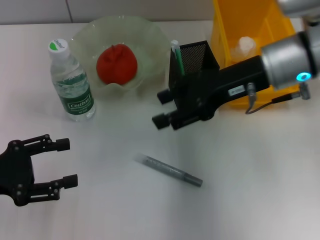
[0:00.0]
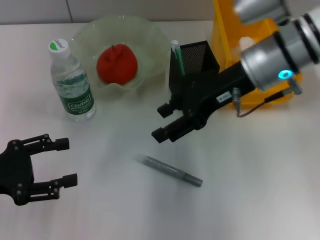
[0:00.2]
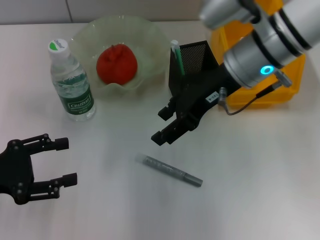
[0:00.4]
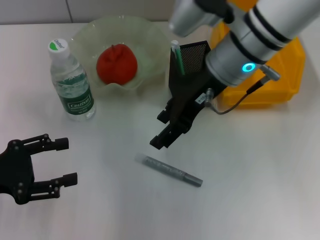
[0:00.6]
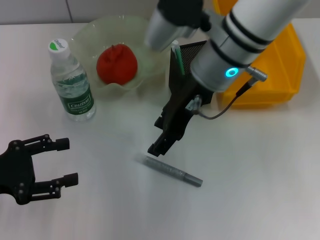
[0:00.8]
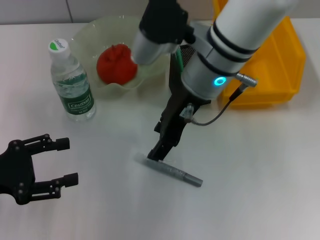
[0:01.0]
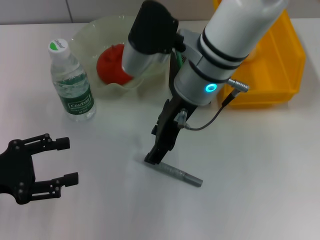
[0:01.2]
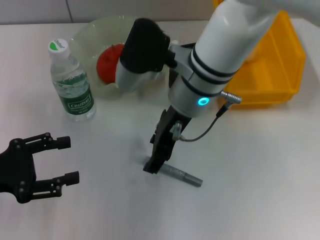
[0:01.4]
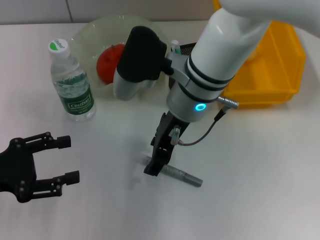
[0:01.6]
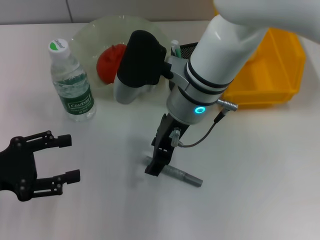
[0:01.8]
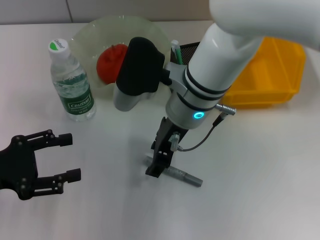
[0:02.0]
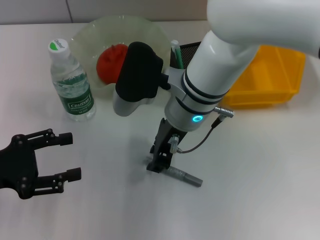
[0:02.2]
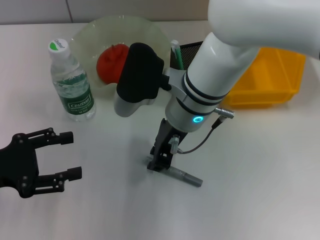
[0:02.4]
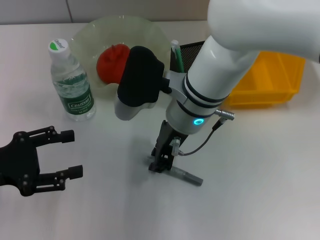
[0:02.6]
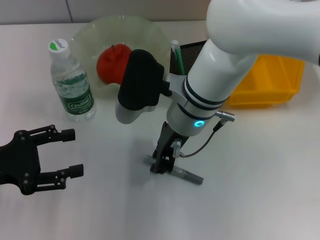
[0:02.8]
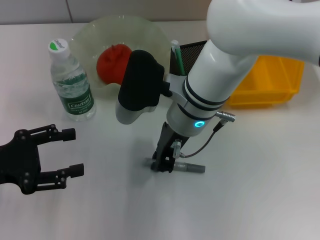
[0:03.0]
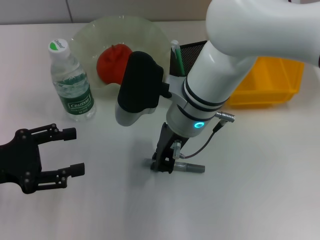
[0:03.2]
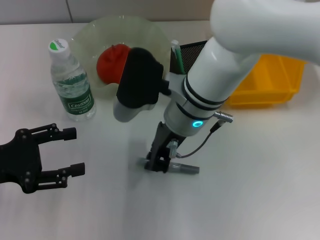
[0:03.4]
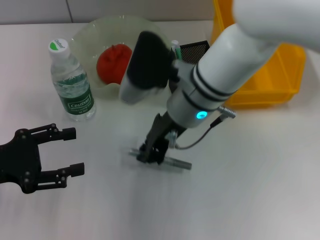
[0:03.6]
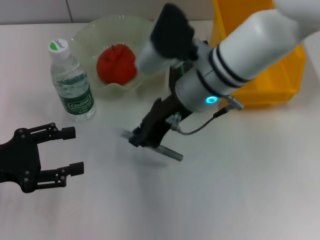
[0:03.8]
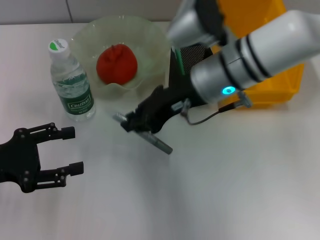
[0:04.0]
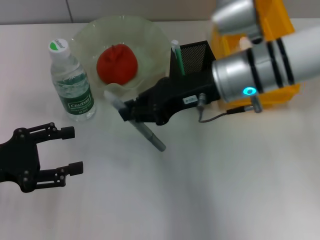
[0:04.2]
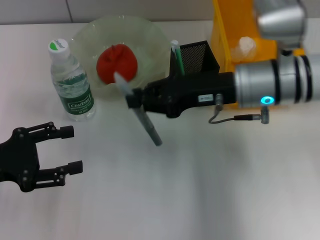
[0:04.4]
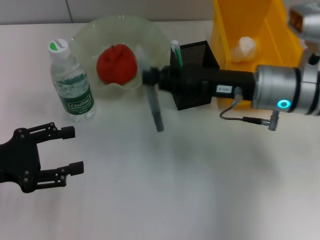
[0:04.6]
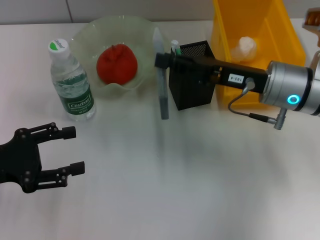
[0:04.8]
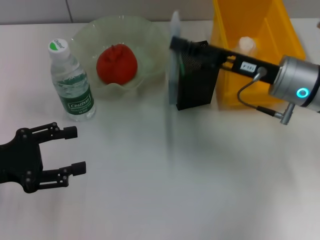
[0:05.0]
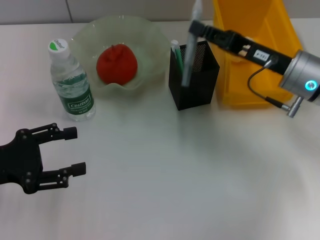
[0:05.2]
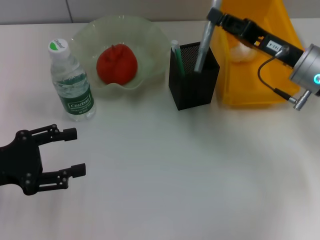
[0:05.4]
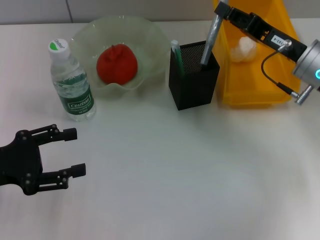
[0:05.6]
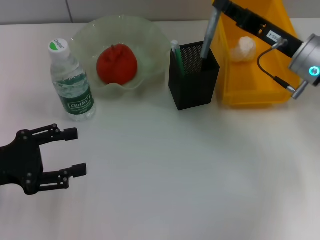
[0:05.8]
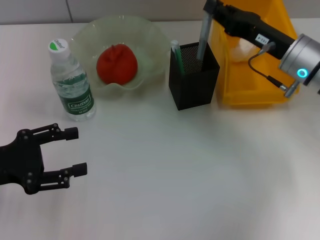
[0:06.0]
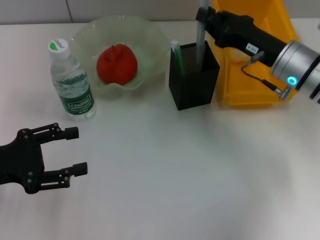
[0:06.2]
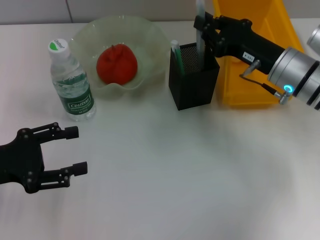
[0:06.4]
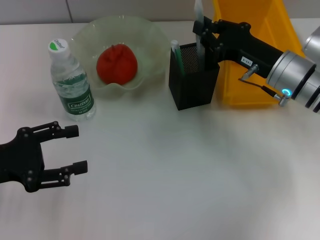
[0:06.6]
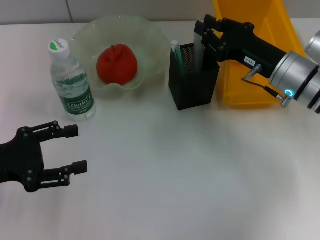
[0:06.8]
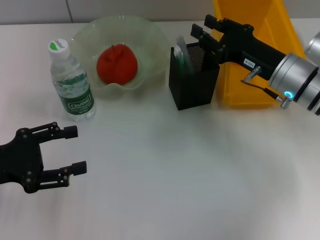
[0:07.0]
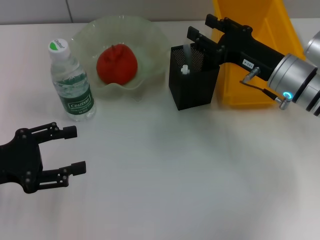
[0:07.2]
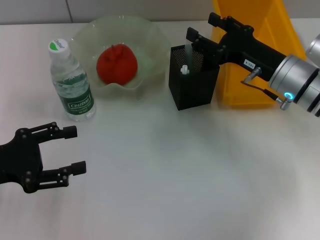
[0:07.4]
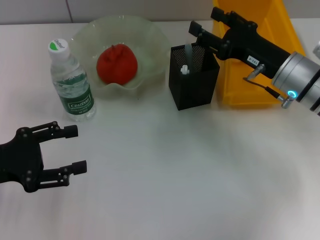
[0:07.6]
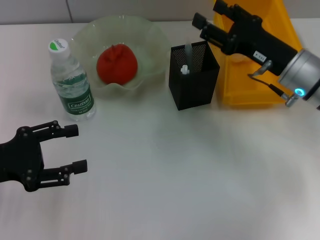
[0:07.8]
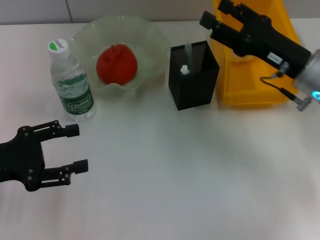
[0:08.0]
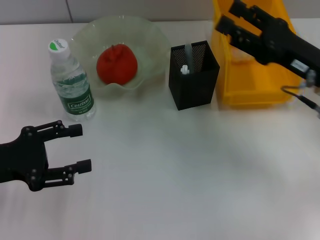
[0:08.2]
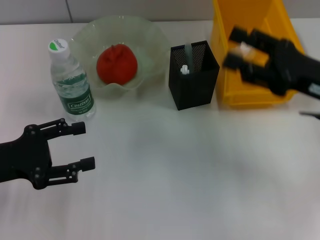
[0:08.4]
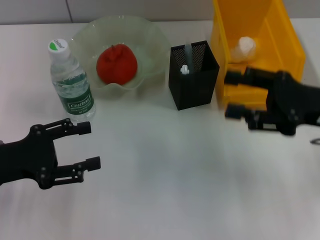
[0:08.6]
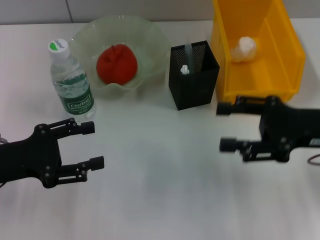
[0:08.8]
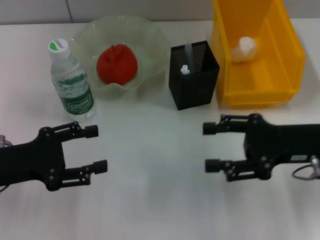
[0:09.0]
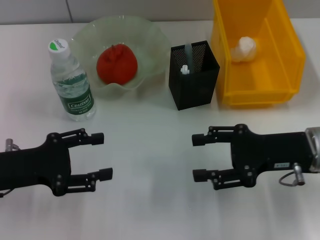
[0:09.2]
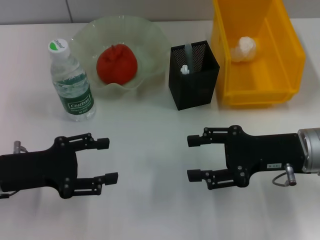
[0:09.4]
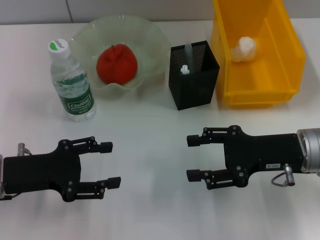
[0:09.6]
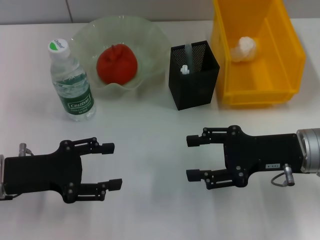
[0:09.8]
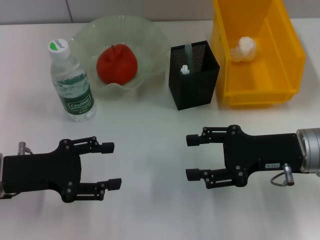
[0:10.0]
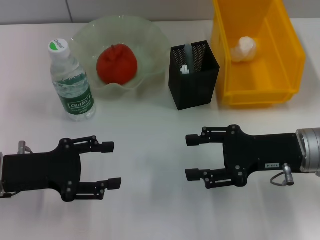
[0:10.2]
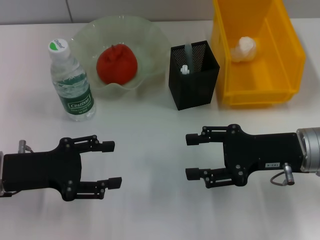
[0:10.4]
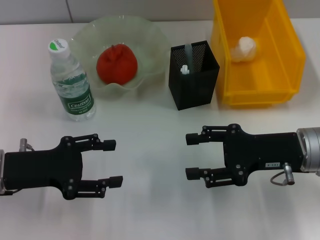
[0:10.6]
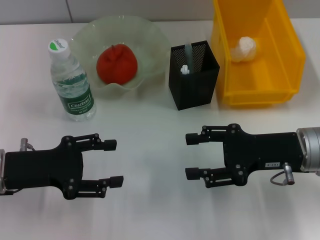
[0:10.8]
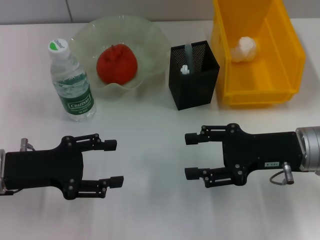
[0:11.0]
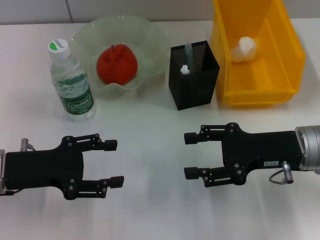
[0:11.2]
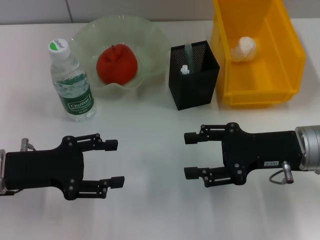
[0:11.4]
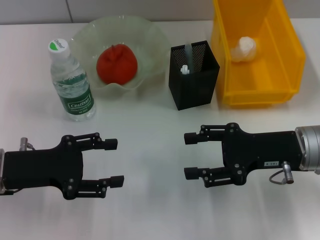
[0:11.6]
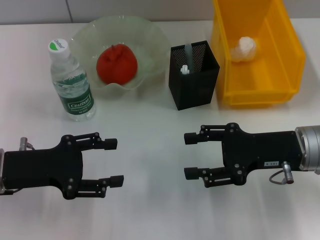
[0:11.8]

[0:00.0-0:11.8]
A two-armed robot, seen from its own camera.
Step, 0:00.0 to 0:03.0: Grab the gray glue with the right hand.
Step, 0:03.2 to 0:07.0: Place the gray glue into the pen holder with the right hand.
0:00.0 to 0:01.4: The right gripper travels to the left by approximately 15 cm.
0:01.4 to 0:03.0: The right gripper closes up.
0:03.0 to 0:04.4: The right gripper shifts some 10 cm to the right.
0:04.4 to 0:06.0: The right gripper heads to the right, covering some 5 cm.
0:06.0 to 0:07.4: The right gripper opens.
0:07.4 to 0:08.8: The right gripper travels backward and to the right by some 10 cm.
0:08.8 to 0:10.4: The right gripper shifts by approximately 5 cm.
0:10.4 to 0:11.8: Neither gripper changes place.
